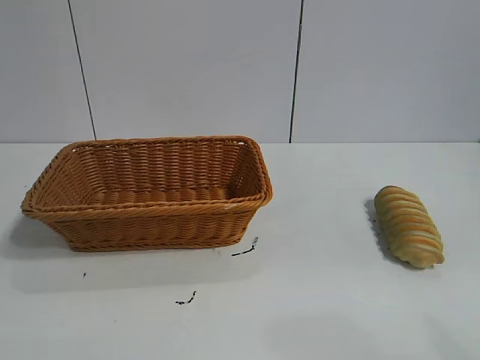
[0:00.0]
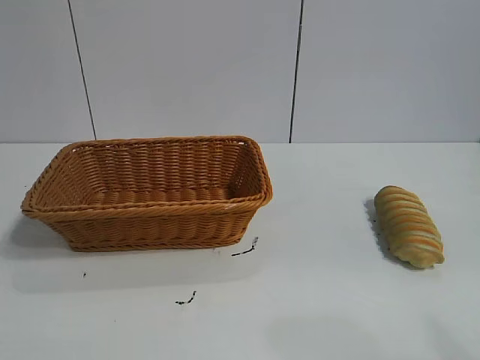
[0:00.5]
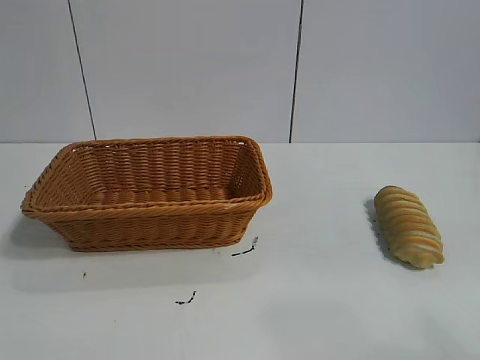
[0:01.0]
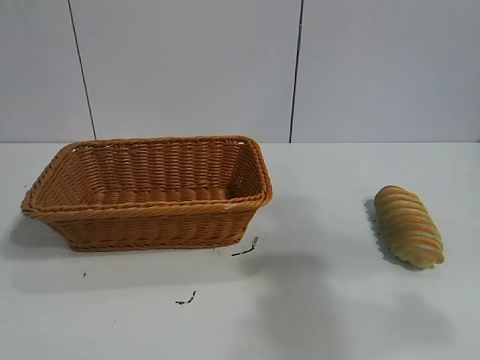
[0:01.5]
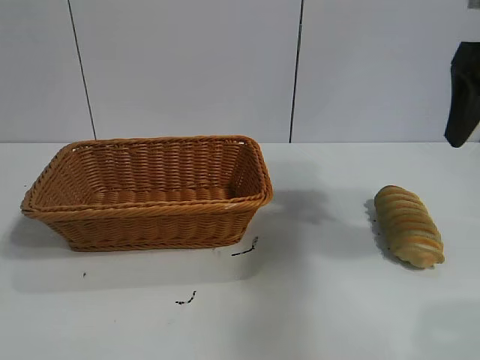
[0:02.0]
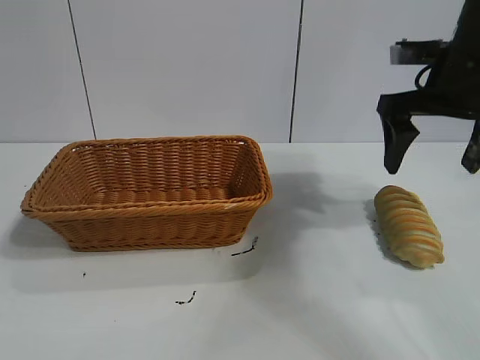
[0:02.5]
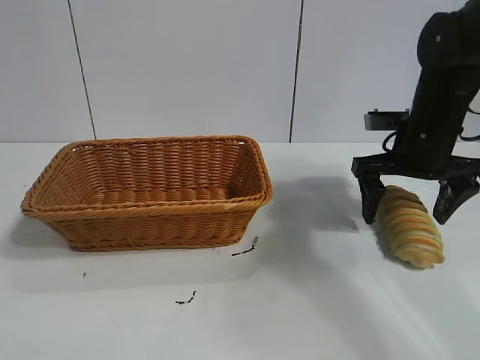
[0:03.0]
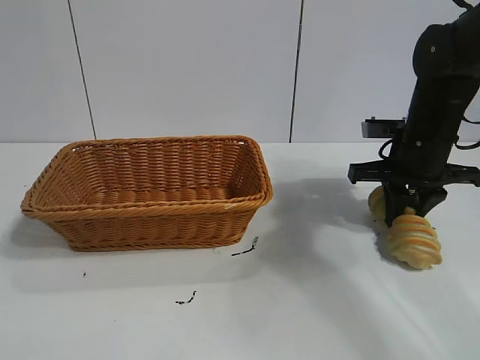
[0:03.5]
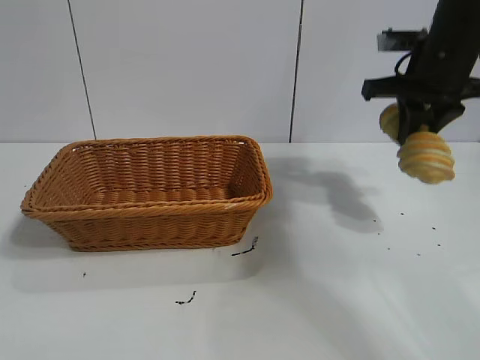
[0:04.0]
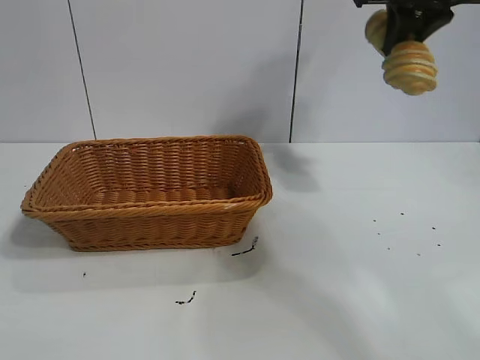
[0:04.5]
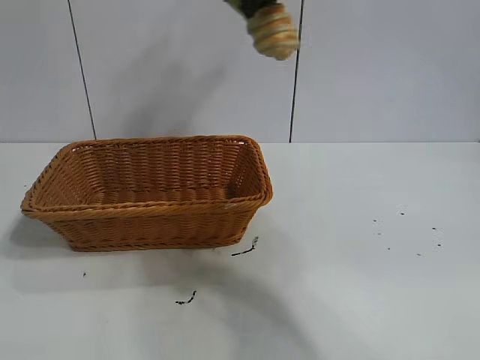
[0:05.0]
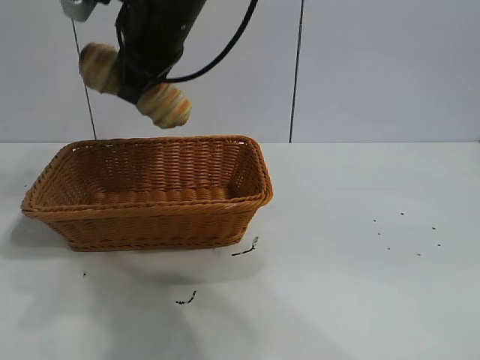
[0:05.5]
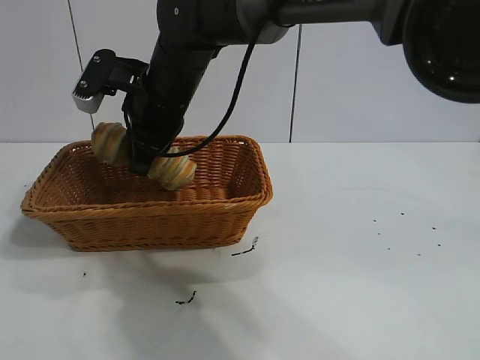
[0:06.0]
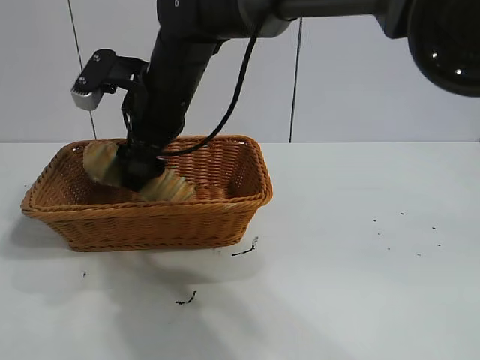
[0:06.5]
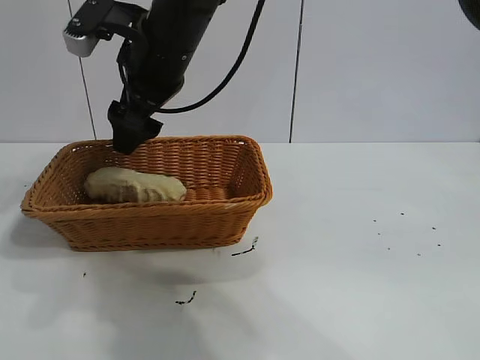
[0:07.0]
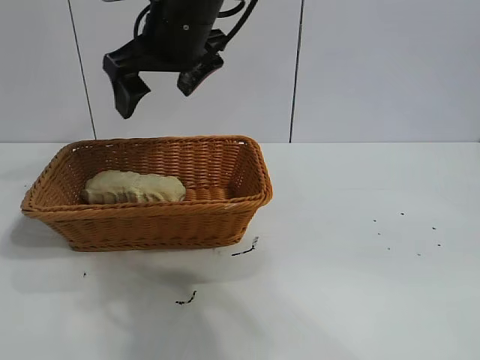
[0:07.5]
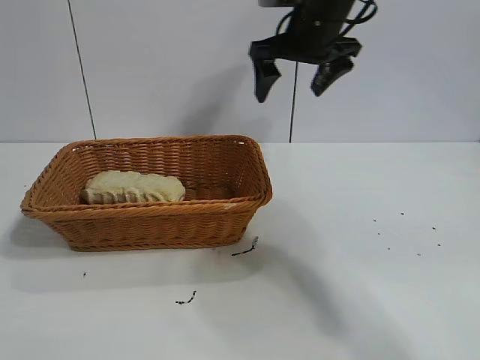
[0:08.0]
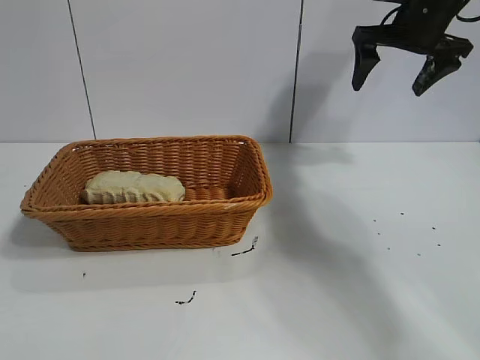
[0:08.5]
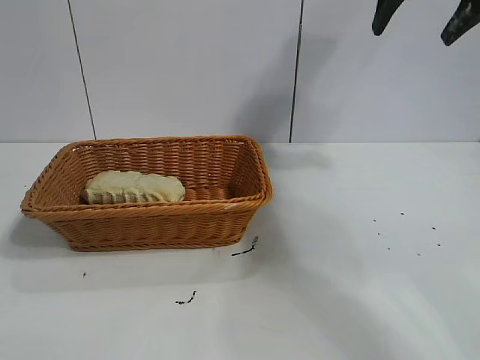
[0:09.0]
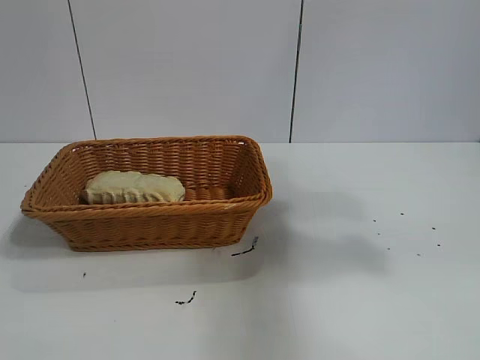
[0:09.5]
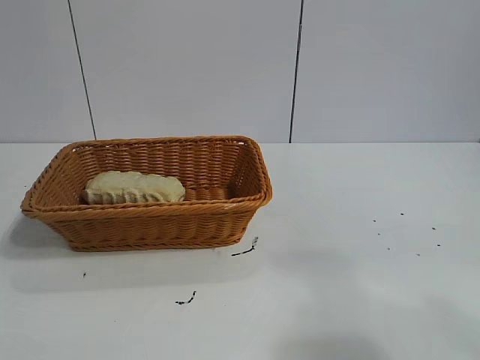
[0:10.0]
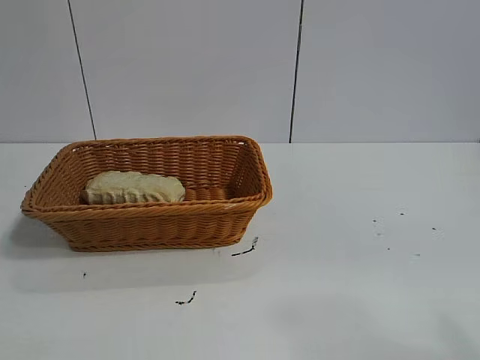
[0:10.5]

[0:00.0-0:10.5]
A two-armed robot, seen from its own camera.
Task of the whole recording: pick up the long bread and put it into the basket.
Step, 0:02.0 to 0:03.5: Grasp the long bread with right gripper.
Step, 0:04.0 to 0:07.0: Place the long bread in the basket with right gripper.
